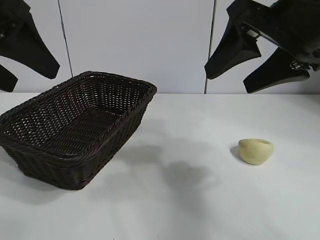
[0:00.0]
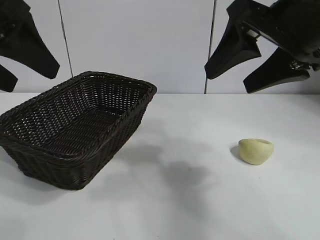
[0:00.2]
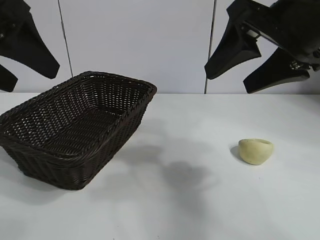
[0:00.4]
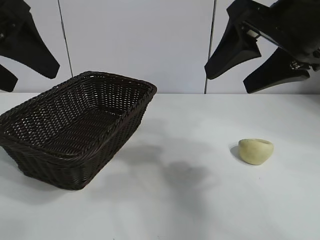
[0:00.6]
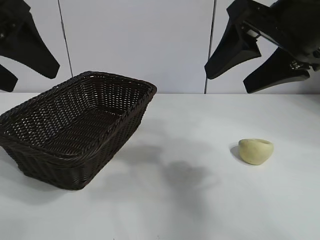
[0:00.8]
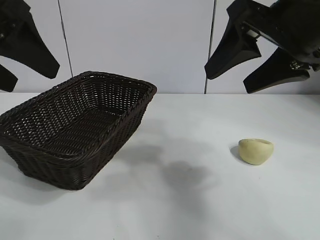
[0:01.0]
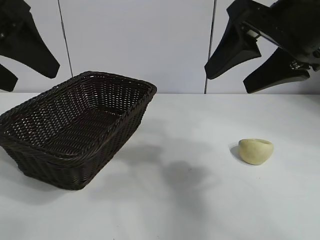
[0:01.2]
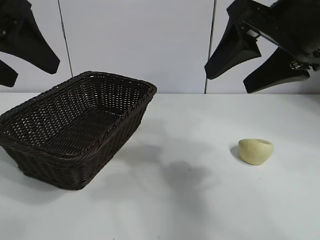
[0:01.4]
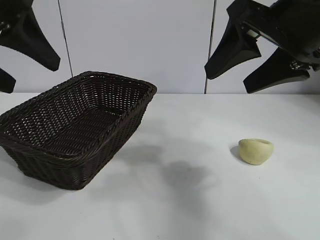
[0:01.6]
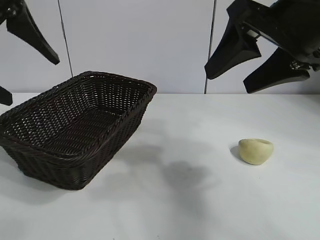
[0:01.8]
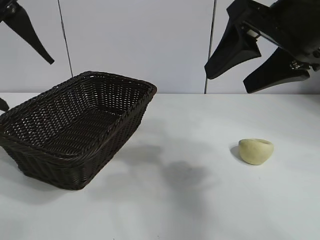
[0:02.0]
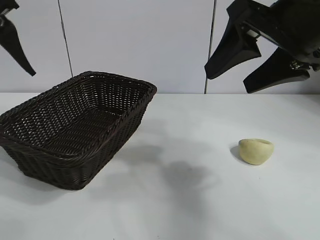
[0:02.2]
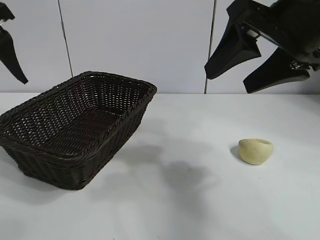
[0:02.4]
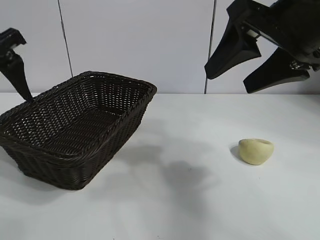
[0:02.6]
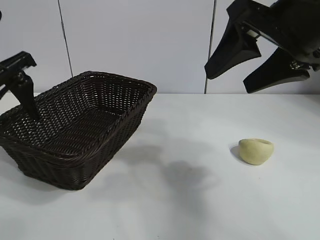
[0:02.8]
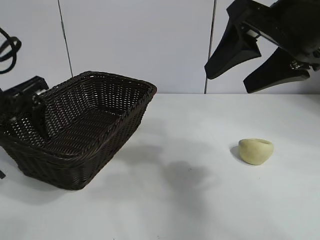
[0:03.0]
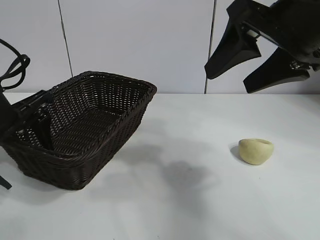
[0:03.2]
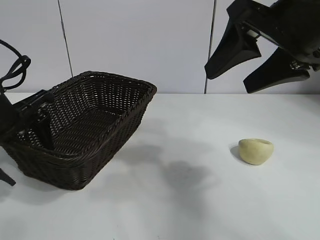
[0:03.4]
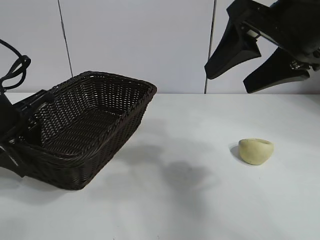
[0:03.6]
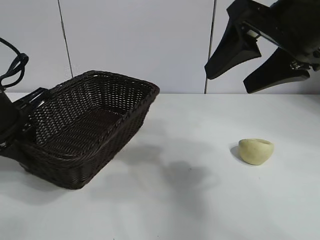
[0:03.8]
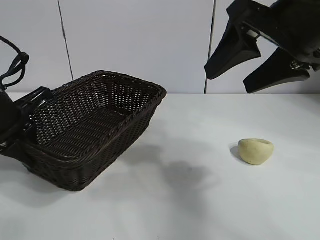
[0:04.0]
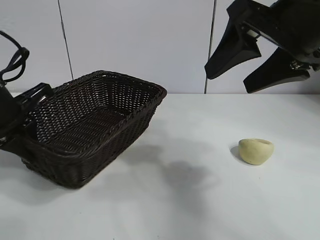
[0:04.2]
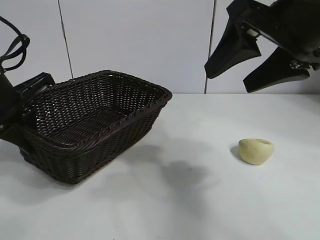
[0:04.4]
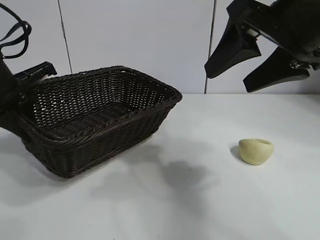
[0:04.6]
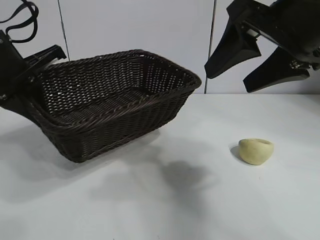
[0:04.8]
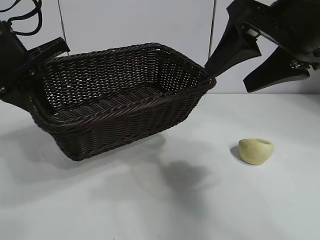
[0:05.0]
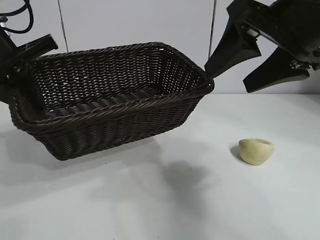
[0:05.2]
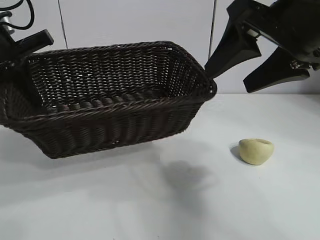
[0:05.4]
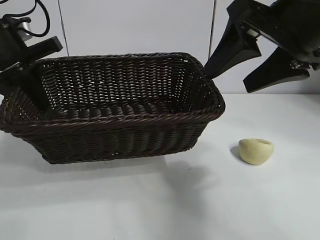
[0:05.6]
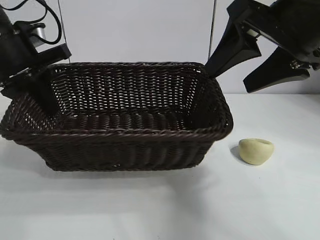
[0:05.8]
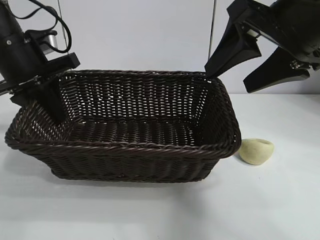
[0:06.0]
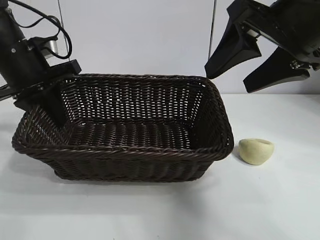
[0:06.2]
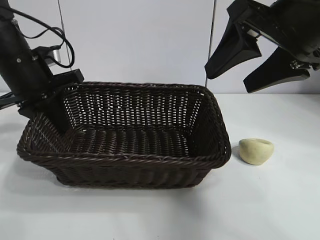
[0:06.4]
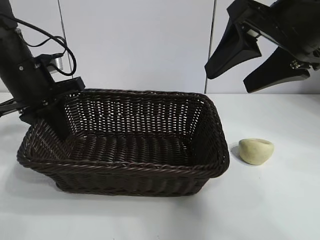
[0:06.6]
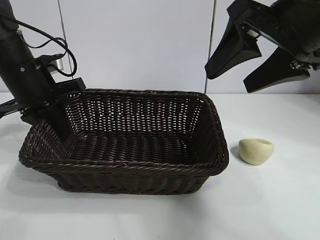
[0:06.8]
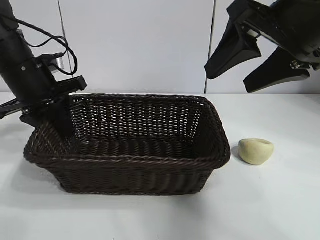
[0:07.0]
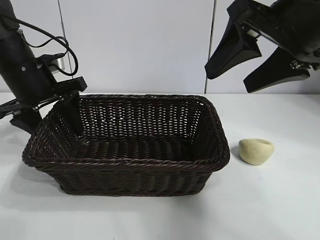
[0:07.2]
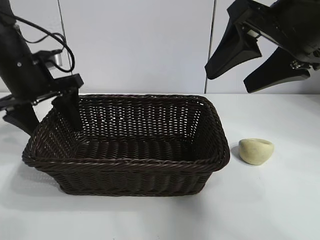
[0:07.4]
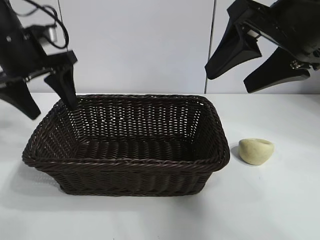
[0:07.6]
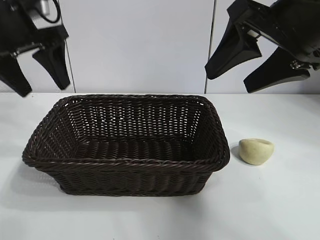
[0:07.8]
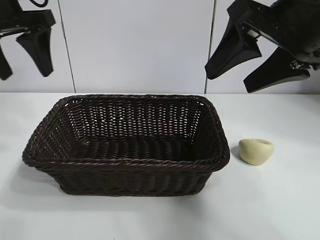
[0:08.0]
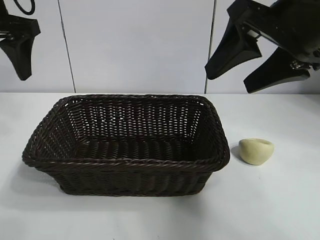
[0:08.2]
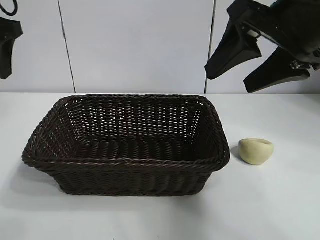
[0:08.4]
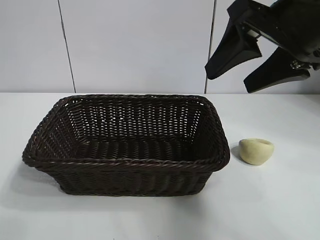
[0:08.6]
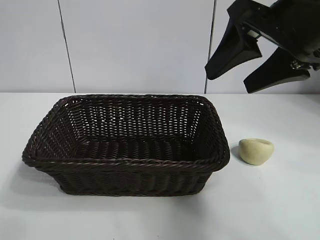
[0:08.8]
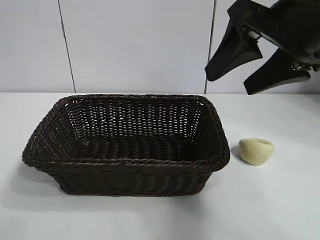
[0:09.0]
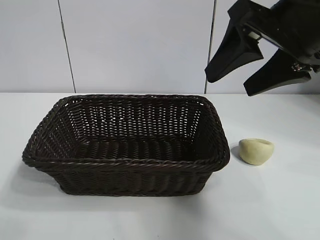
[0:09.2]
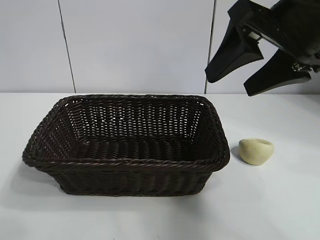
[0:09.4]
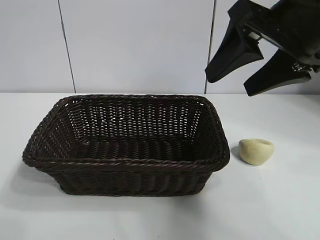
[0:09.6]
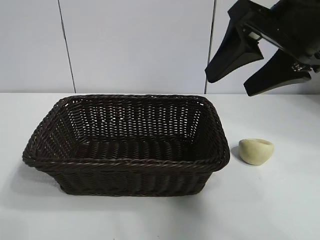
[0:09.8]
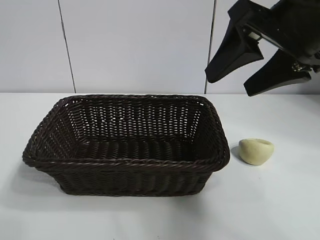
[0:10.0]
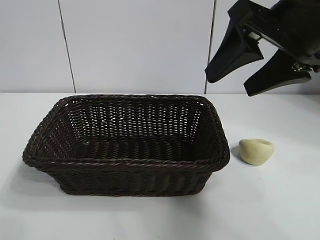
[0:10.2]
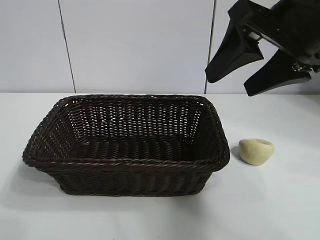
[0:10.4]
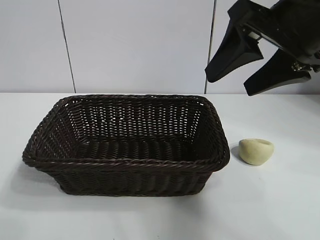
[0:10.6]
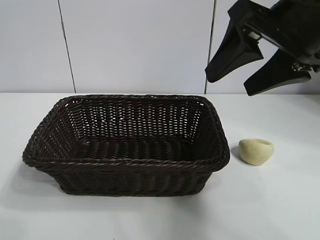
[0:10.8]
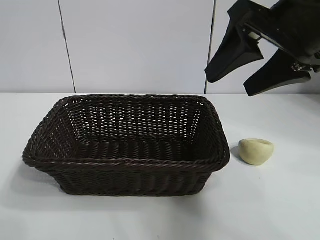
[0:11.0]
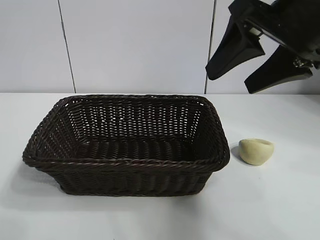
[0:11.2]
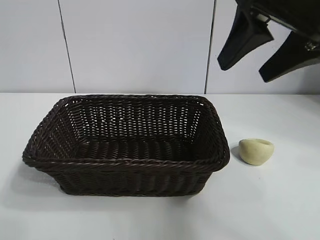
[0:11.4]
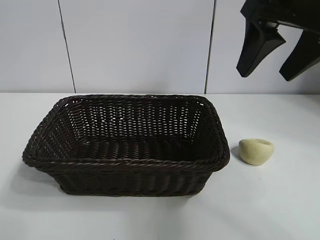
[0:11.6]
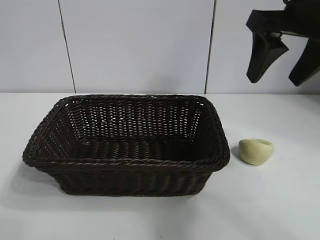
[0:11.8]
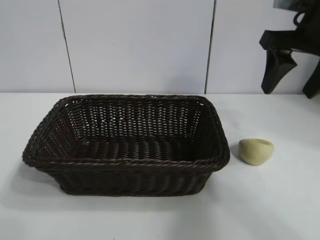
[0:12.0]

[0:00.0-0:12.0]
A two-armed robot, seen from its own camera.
Task of the whole recording: pick up the egg yolk pastry and put it into the basket.
Step, 0:01.4 to 0:03.8: Grasp the basket with left gripper.
Step, 0:04.0 to 0:07.2: Place the basket in the center of view with left gripper.

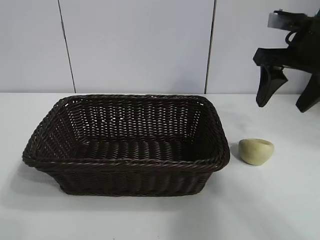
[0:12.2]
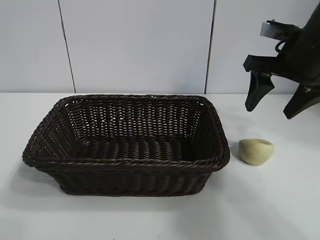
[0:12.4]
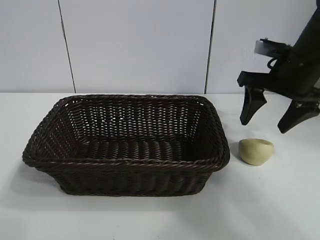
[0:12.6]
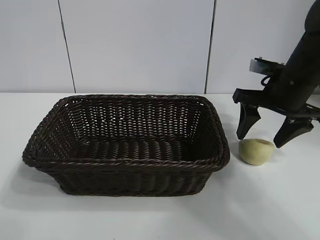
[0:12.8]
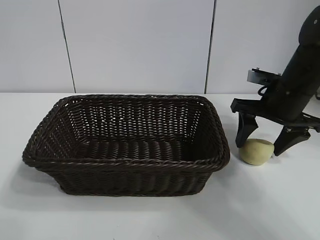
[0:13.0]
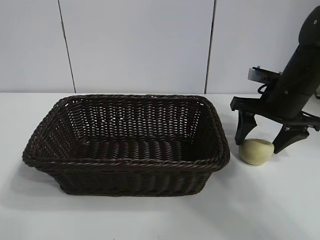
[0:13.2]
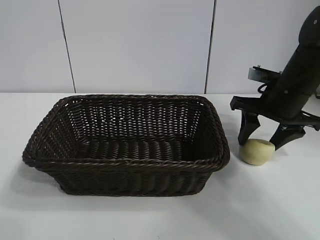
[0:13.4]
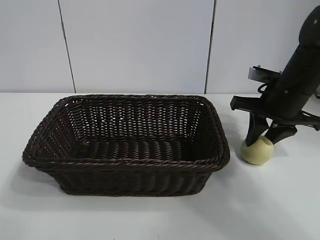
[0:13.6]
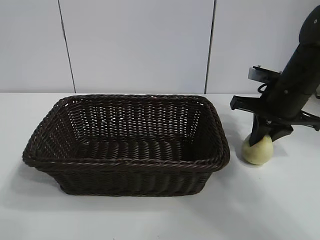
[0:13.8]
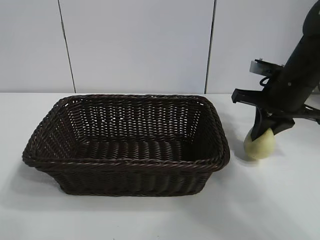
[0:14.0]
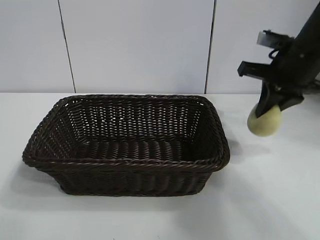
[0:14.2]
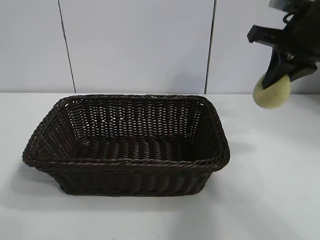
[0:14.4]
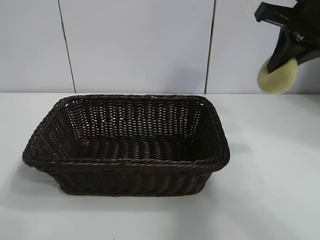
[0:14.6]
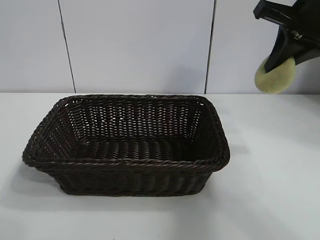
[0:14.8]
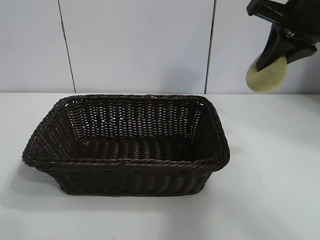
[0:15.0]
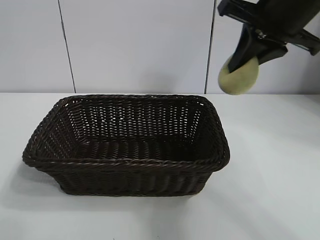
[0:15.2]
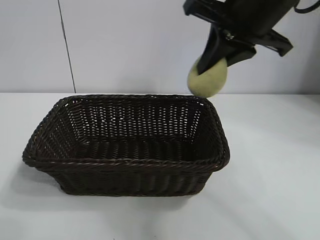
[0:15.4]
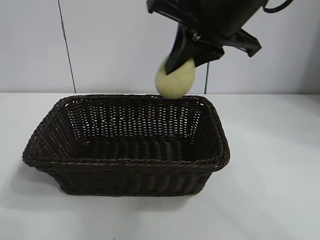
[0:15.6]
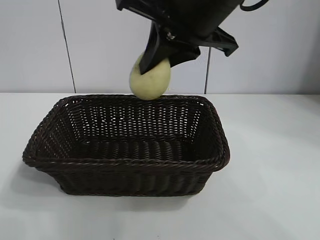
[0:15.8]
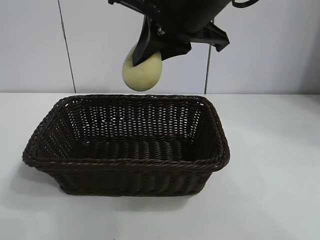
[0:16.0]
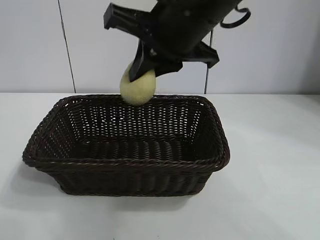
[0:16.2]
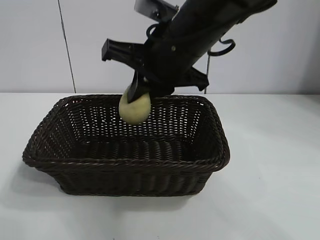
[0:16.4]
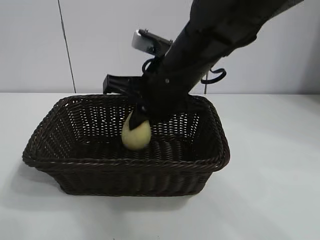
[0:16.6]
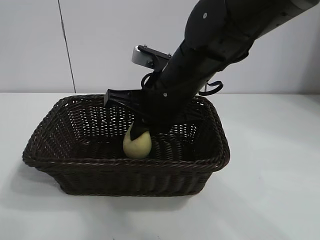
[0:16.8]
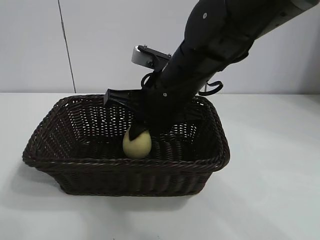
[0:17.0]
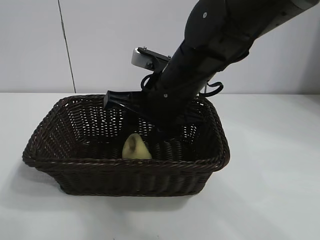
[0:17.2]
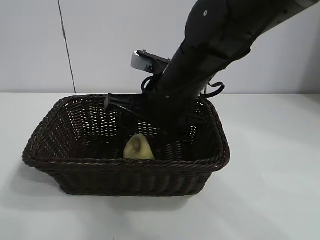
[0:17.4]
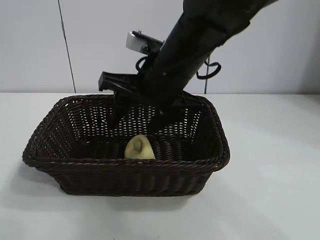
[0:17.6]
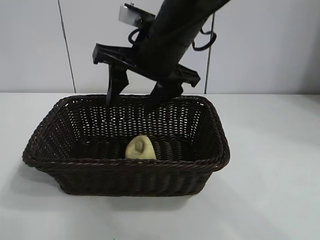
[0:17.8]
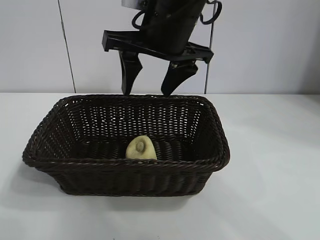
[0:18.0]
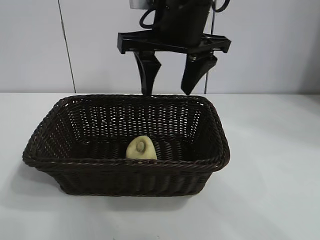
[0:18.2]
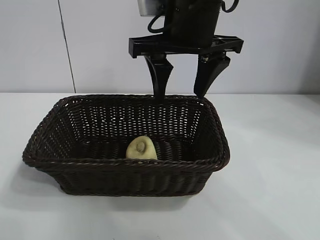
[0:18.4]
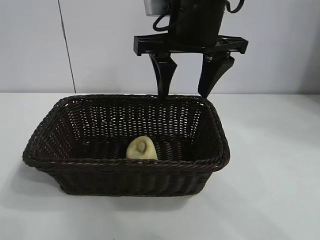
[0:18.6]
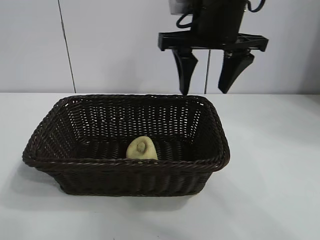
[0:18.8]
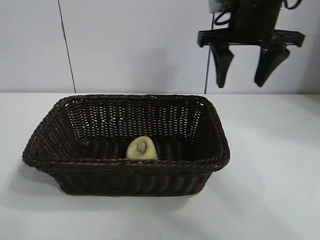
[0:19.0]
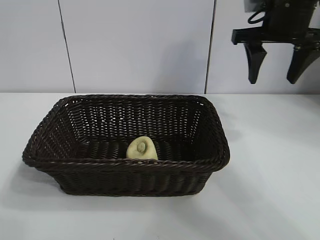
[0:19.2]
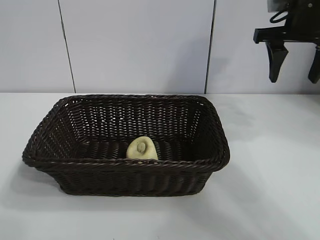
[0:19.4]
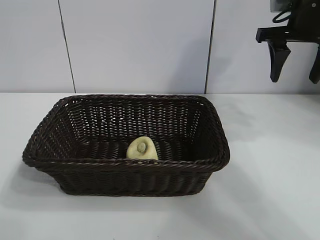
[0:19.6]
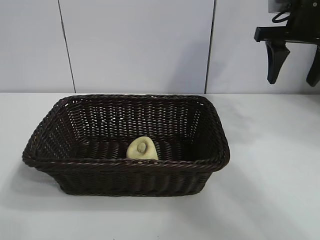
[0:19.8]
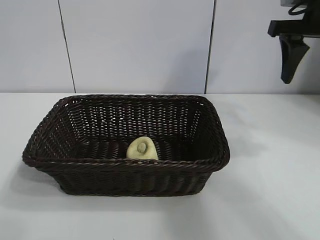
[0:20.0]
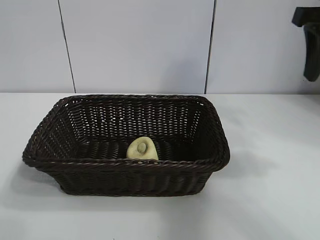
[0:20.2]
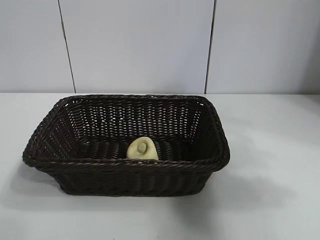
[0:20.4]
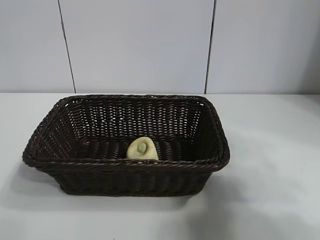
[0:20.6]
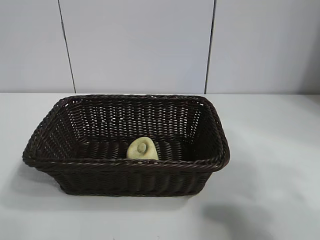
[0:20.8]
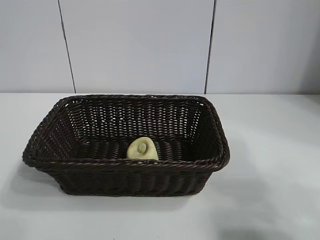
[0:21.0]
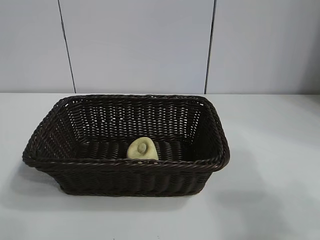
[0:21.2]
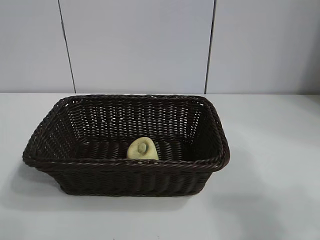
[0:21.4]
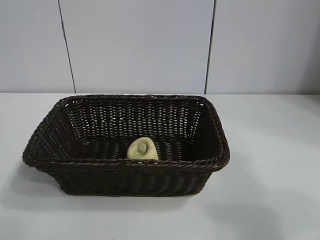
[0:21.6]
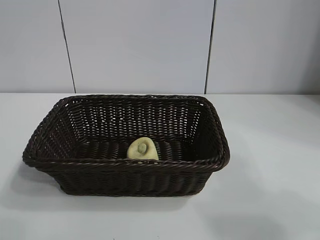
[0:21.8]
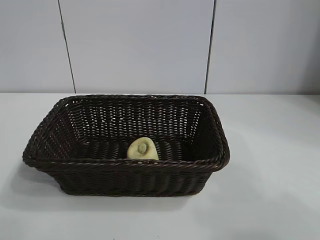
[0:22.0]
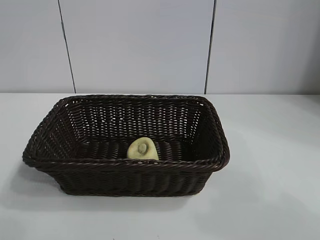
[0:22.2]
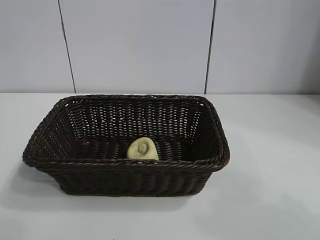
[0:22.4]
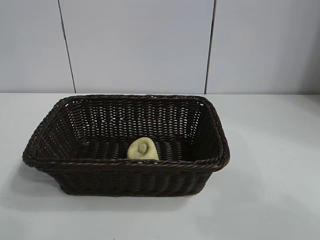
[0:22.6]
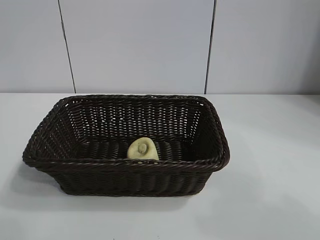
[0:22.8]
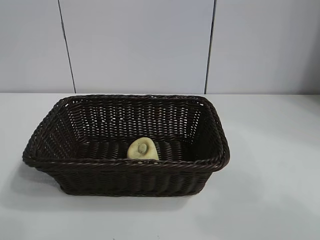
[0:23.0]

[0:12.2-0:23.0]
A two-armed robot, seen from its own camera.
Task of the whole recording: pick up the egg yolk pastry and put it into the basket.
Step, 0:14.0 to 0:17.4: Place the egg yolk pastry in the basket with right gripper.
